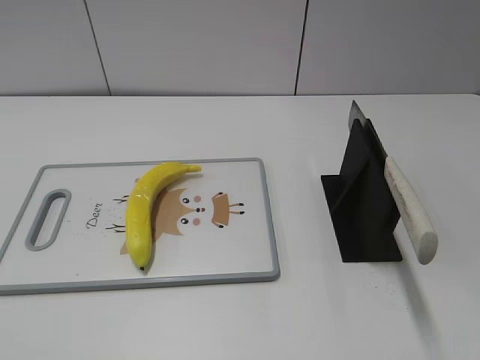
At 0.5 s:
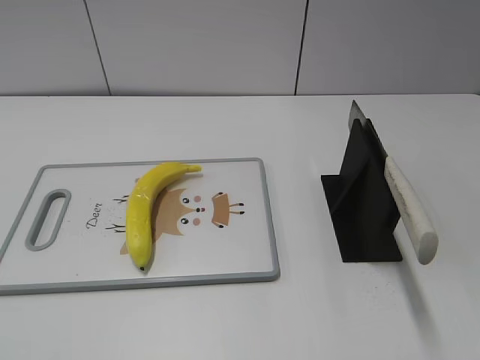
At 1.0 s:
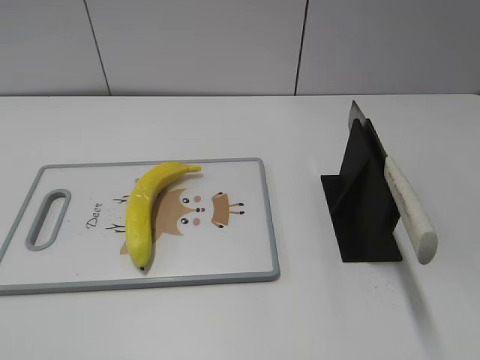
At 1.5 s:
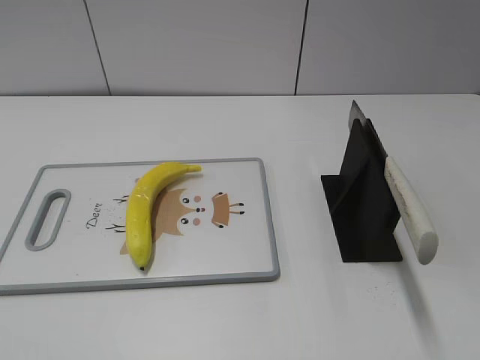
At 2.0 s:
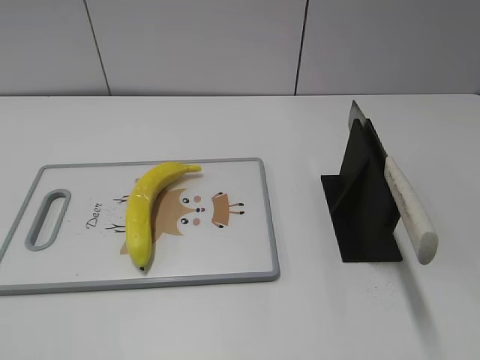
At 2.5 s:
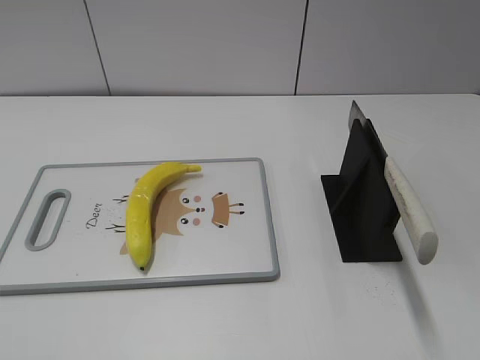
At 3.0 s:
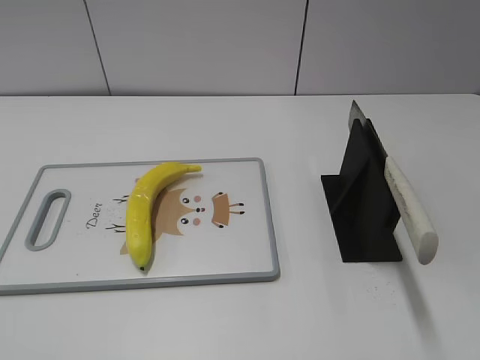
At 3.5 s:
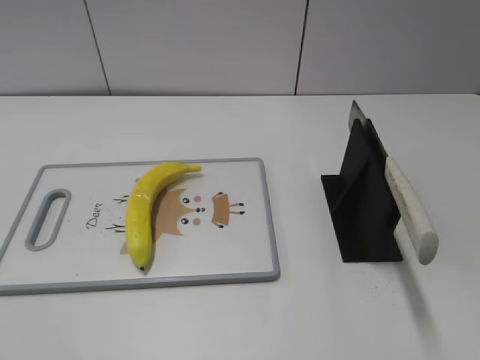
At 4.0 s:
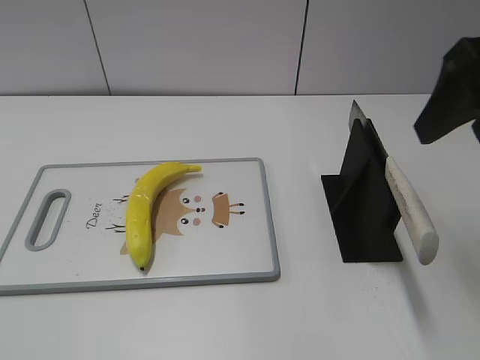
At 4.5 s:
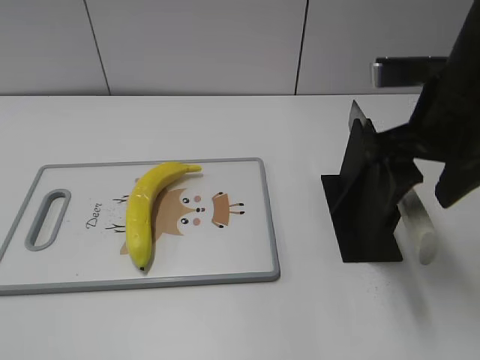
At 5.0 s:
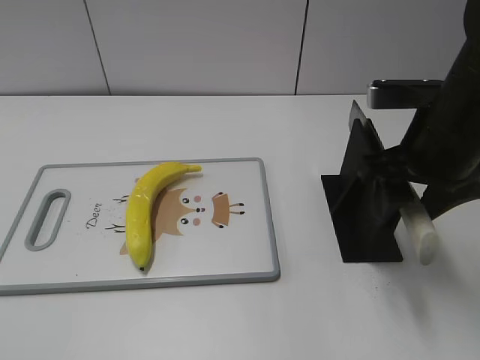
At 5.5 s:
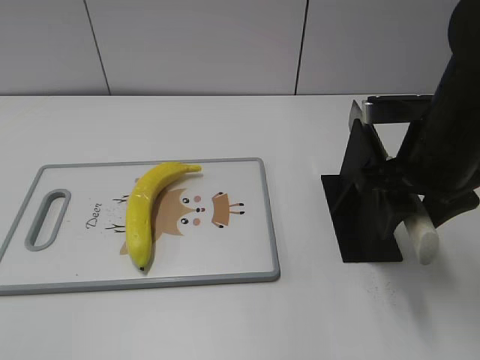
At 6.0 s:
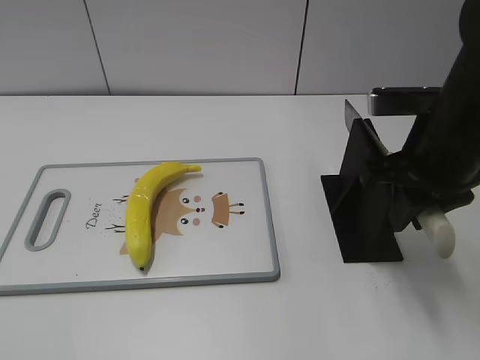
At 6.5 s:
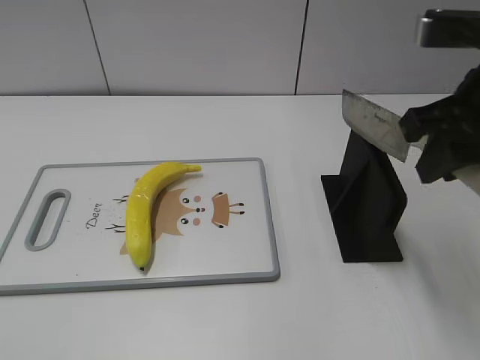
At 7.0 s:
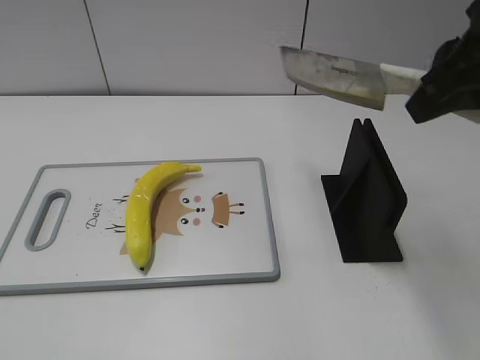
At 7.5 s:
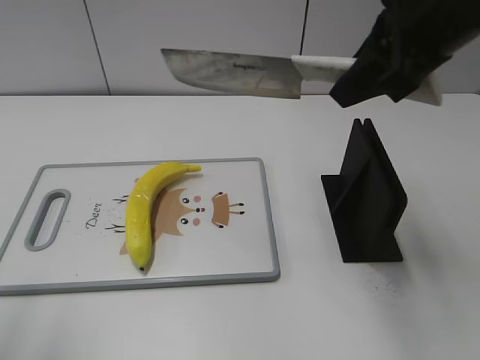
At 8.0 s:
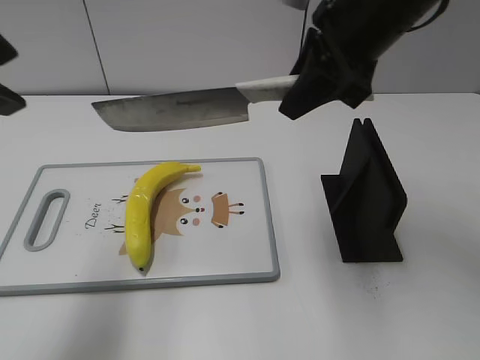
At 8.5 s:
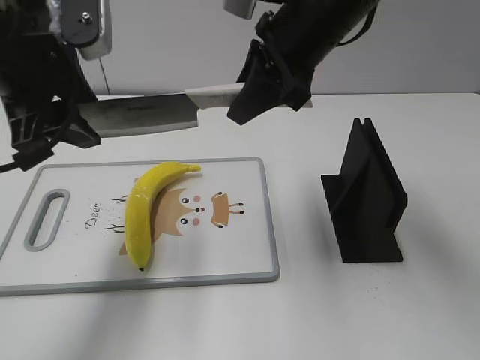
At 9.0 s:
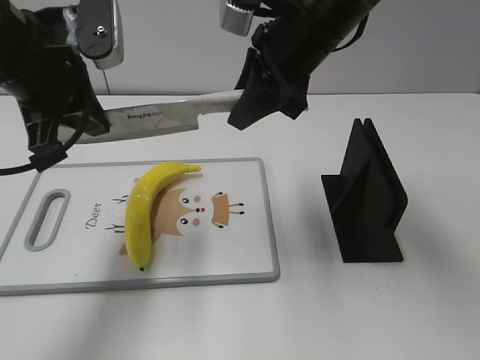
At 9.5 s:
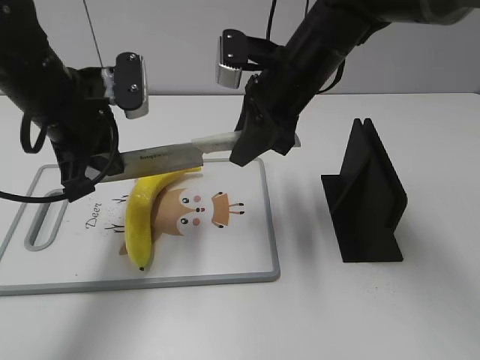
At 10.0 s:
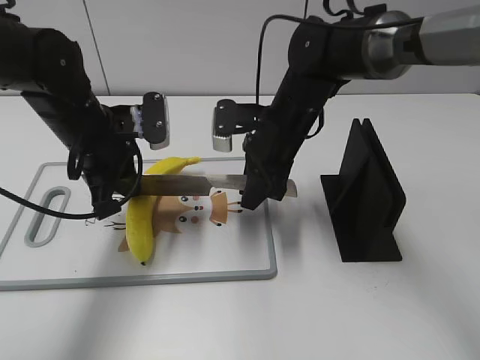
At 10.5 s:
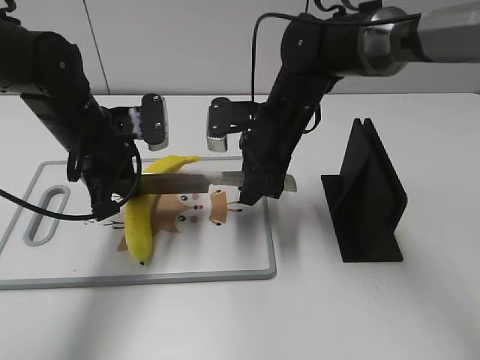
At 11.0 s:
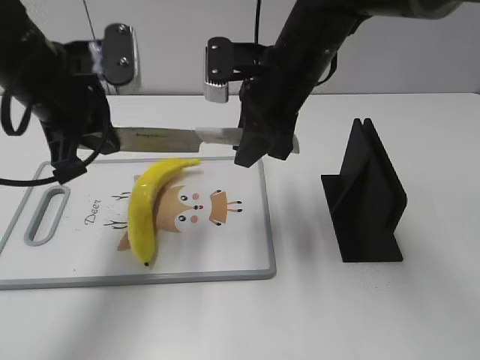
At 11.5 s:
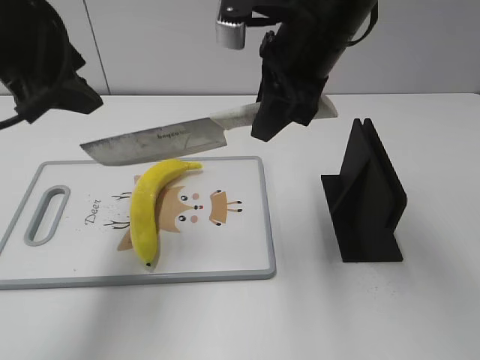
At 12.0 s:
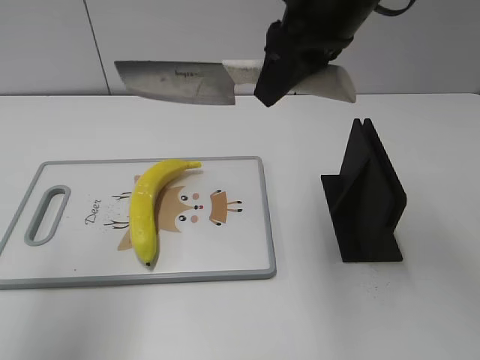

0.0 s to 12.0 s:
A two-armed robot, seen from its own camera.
Task of the whole recording: cut plastic banana.
Step, 0.0 to 7.0 s: Grab the knife handle with your right hand.
Step, 7.5 to 11.0 s: Lift the knife with your right hand.
2.0 to 4.0 s: The right gripper travels forward by about 25 cm.
4.0 to 6.0 s: The right gripper moves downward, about 10 cm, and closes.
6.0 to 8.0 s: The right gripper goes about 10 cm upward, to the left and forward; the left gripper travels forward and to the right by approximately 25 cm.
8.0 to 10.0 s: The left gripper goes about 25 cm downward and forward, and closes its fingers; the right gripper heads downward, covering approximately 20 cm.
10.0 to 12.0 s: The right gripper heads upward, covering approximately 20 cm. Meanwhile the left gripper moves upward and backward, some 25 cm, and opens up.

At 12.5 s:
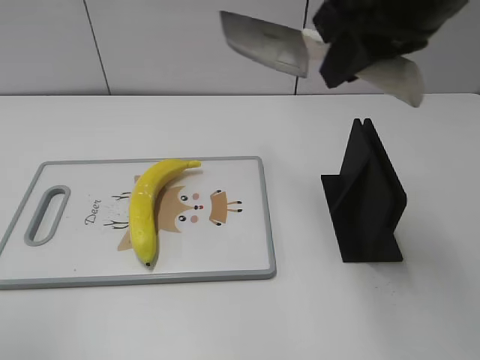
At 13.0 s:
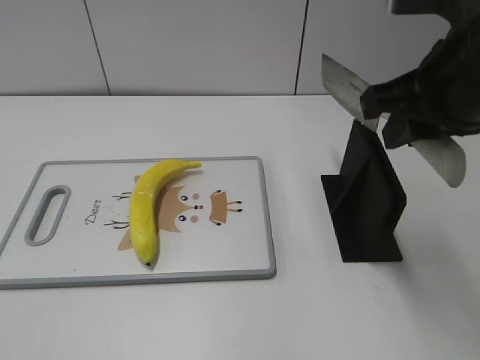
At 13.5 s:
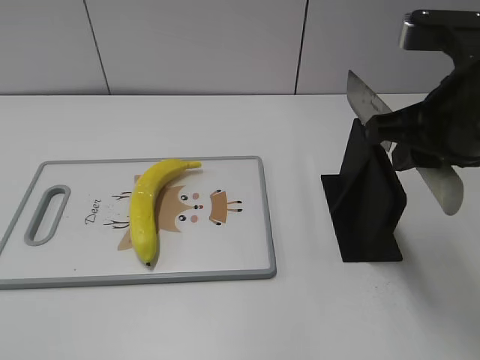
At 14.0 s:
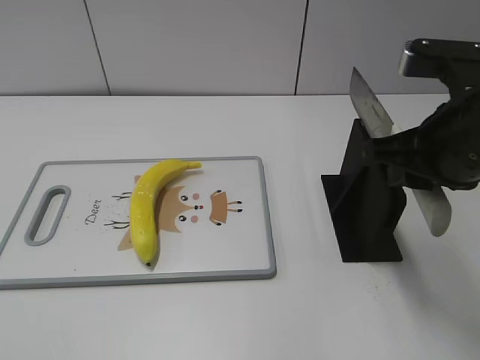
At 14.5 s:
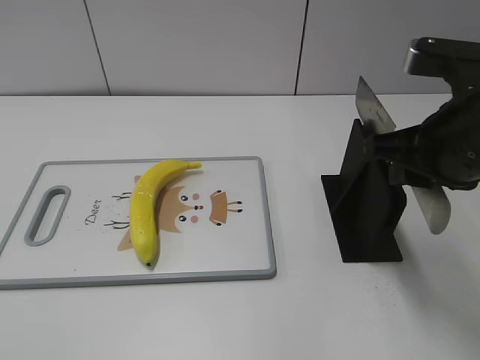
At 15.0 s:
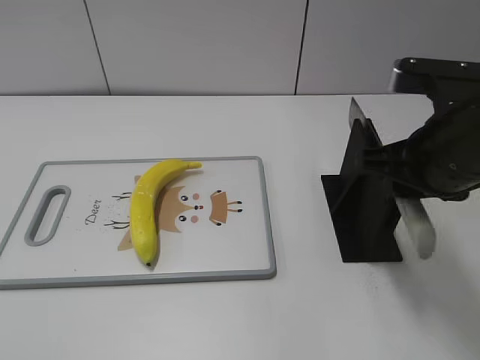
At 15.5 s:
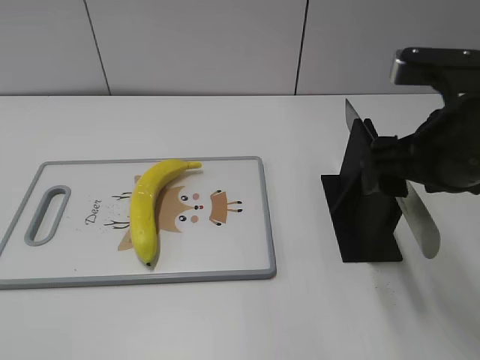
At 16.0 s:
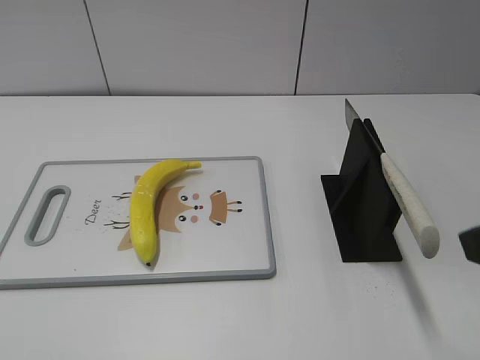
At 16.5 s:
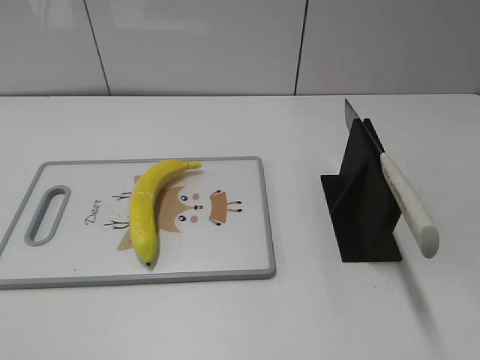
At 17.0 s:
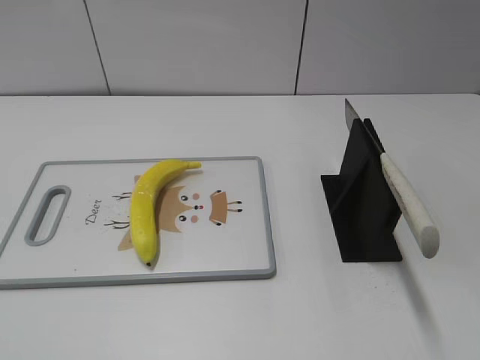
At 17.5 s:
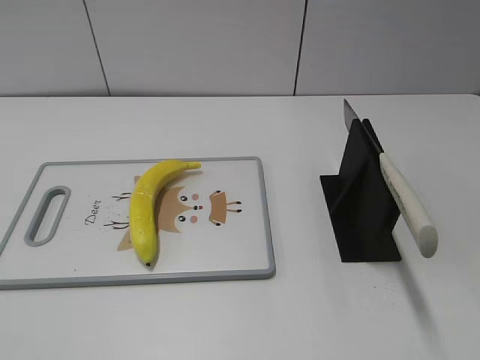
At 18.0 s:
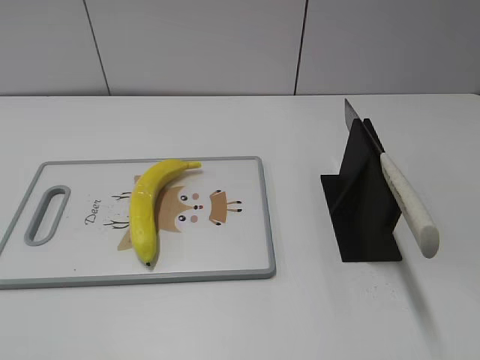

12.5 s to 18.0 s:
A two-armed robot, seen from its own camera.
Task of the whole recording: cut plastic banana.
Step, 14.0 to 18.0 s: Place the knife on the storage rack with your right hand.
12.5 to 14.5 s: The right gripper heads downward and to the right, covering some 10 cm; the left gripper goes roughly 15 cm backward and downward.
14.5 to 16.0 s: The right gripper goes roughly 10 cm backward, and opens up.
